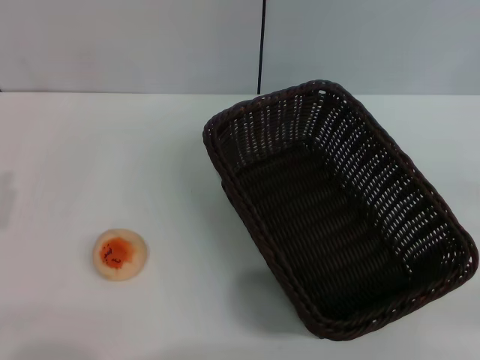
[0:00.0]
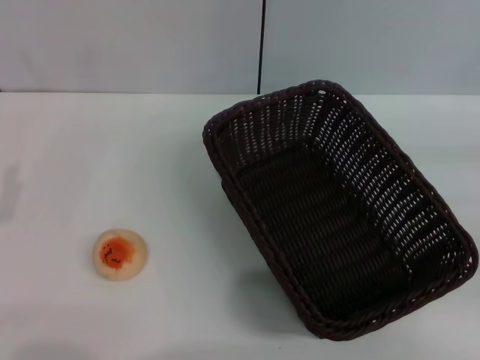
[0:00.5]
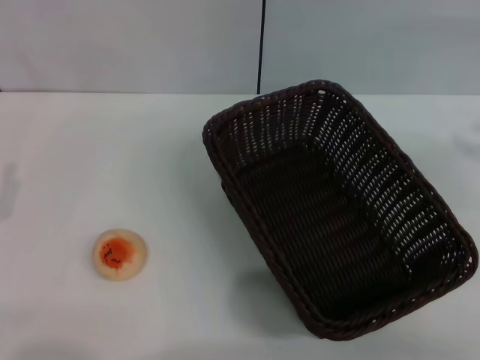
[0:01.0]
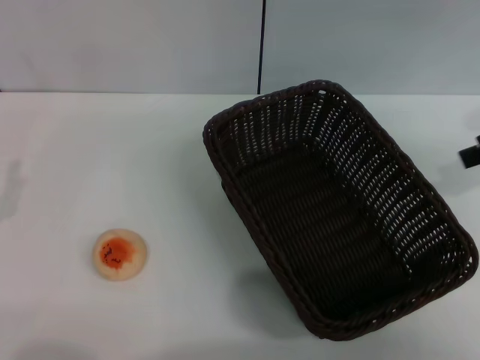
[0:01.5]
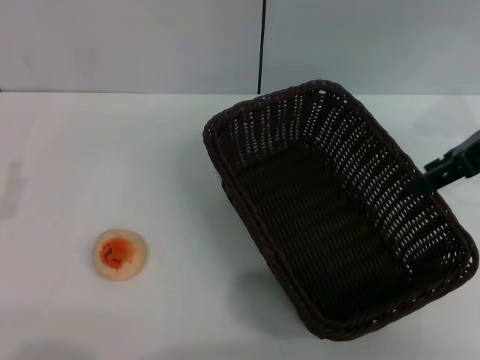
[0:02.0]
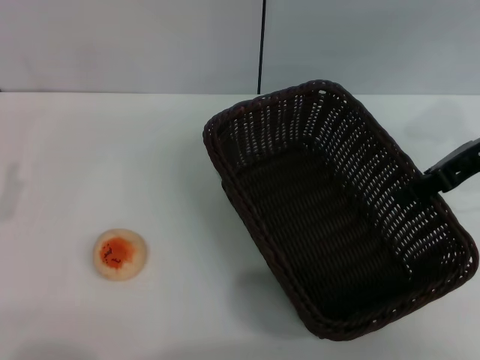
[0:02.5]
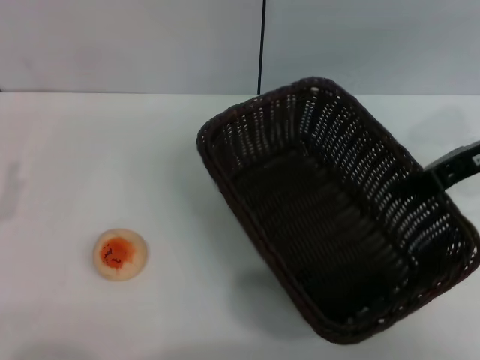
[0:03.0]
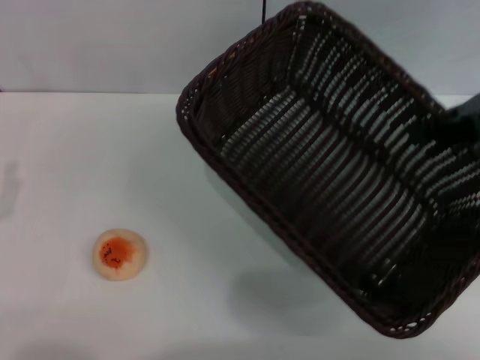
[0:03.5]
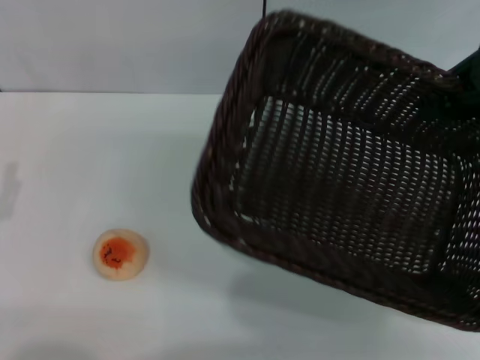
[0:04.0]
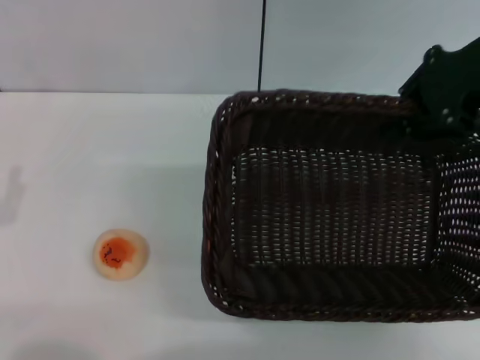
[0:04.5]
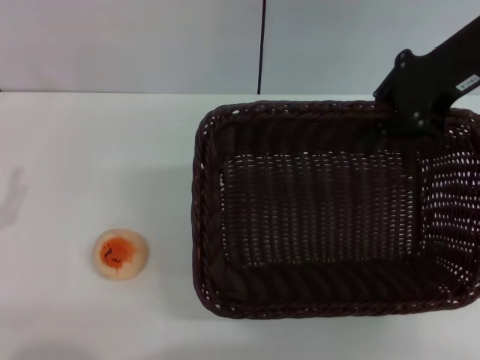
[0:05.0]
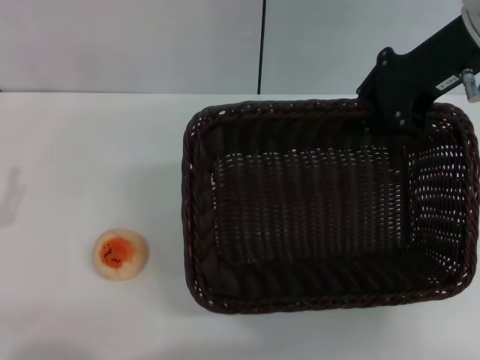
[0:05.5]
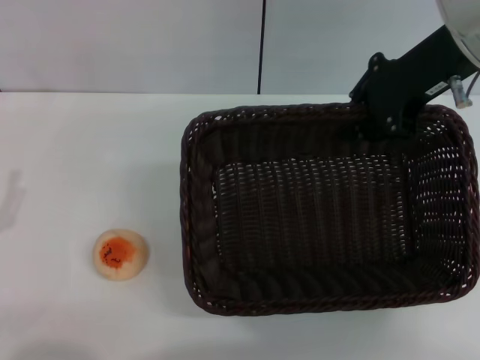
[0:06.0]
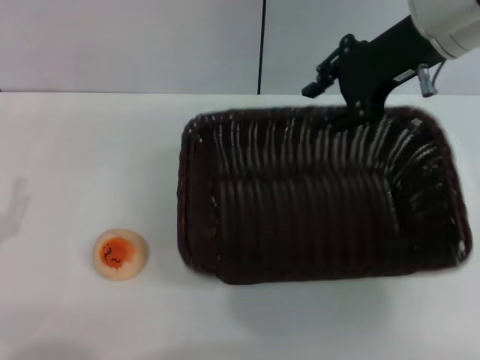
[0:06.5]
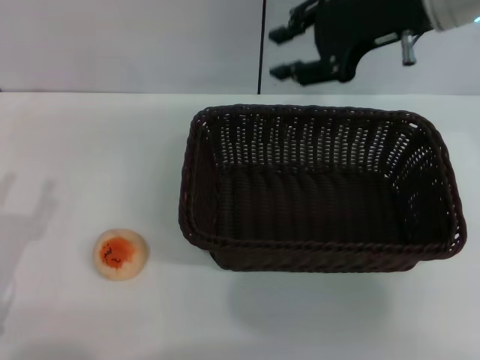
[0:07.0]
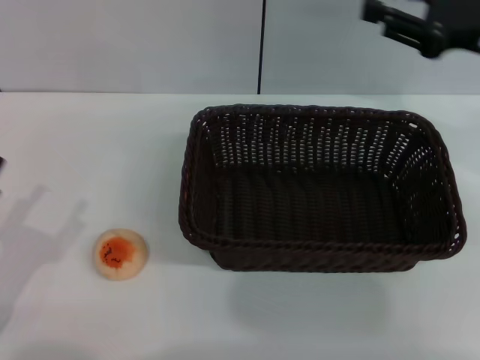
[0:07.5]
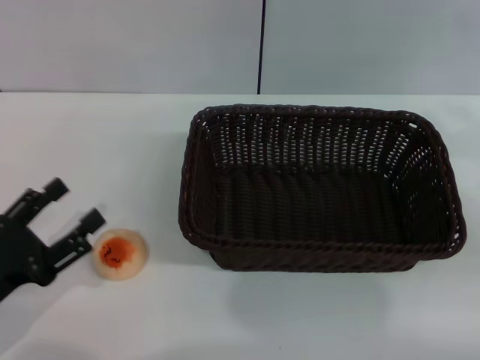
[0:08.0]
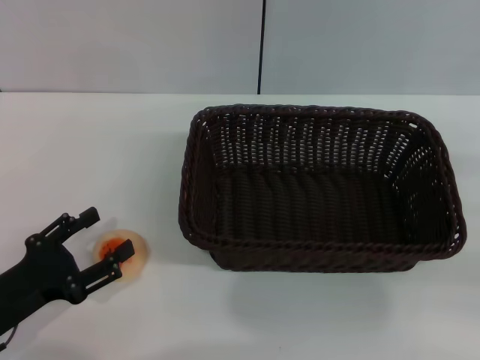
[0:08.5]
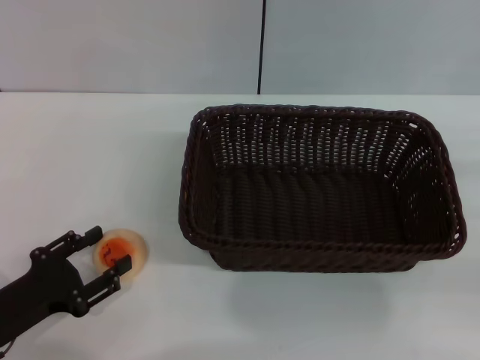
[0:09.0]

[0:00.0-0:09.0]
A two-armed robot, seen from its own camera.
Step, 0:00.0 to 0:06.5: Move the basket to the center of view with the right gripper.
0:00.0 to 0:02.0: The right gripper goes about 25 cm forward, to the left and upward, and opens up.
0:02.0 to 0:04.5: The right gripper moves upward, roughly 5 cm, and closes up.
0:04.5 to 0:07.0: The right gripper heads to the left, covering about 5 cm, and opens up.
0:07.0 to 0:09.0: The left gripper moves roughly 5 cm. The right gripper travels to the right, backward and downward by some 35 cm.

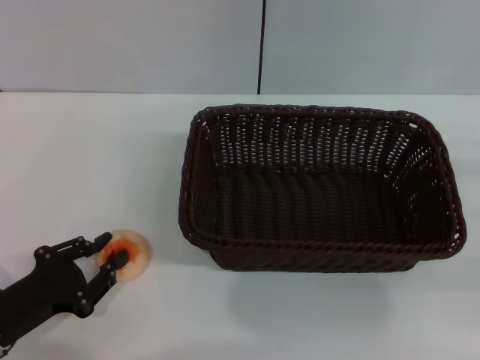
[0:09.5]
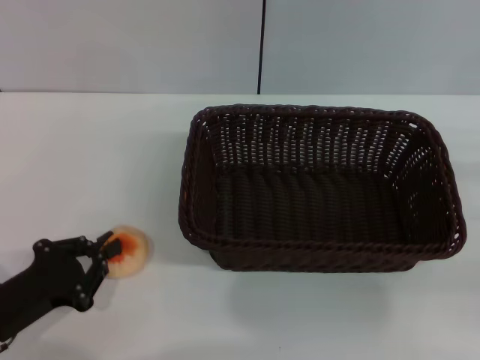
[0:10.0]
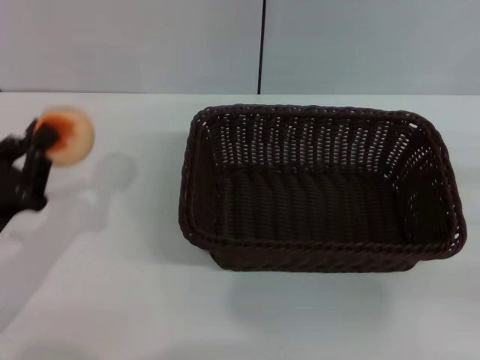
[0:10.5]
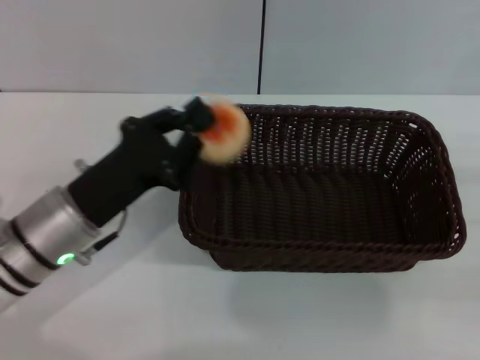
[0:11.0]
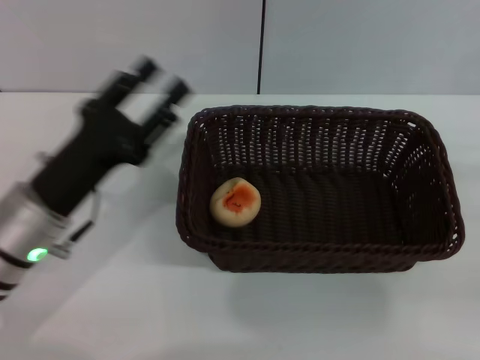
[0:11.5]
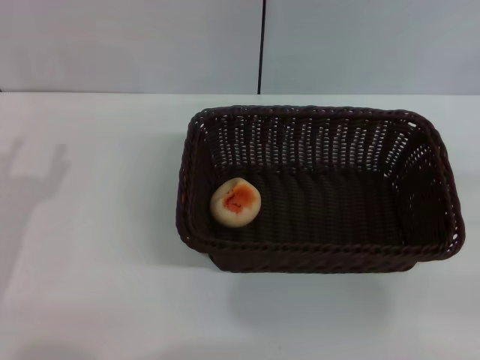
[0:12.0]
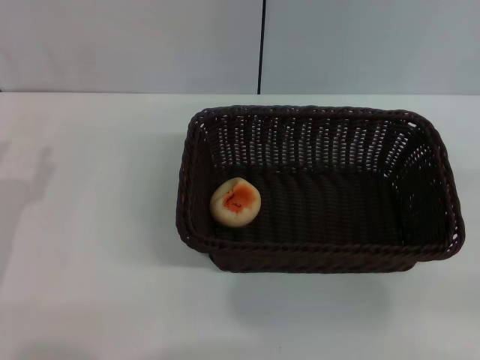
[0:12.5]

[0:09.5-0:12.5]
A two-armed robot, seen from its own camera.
Step, 0:10.5 to 0:11.0: Place the egg yolk pastry into the basket with the left gripper.
0:09.5 to 0:11.0: The left gripper shifts some 15 cm to the right, forward and upward, and closes its fingers.
0:11.0 to 0:12.5: The left gripper travels to the left and backward by about 15 cm, and opens its fingers.
